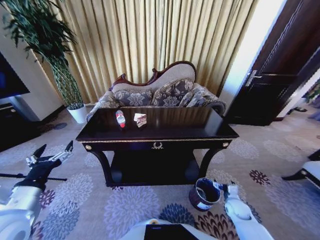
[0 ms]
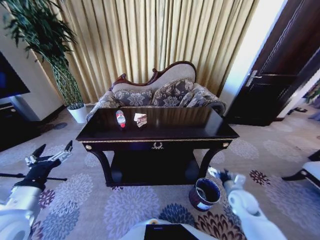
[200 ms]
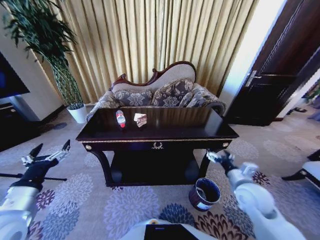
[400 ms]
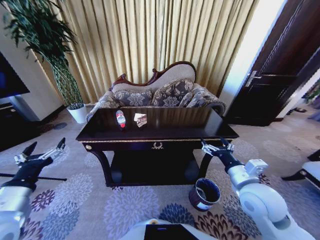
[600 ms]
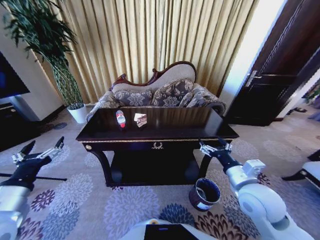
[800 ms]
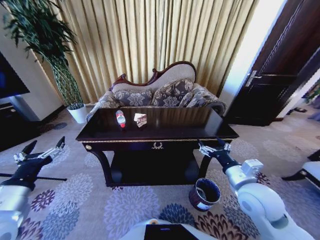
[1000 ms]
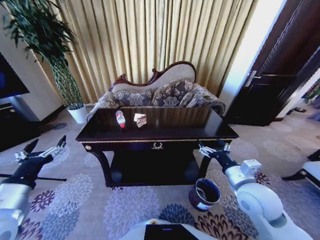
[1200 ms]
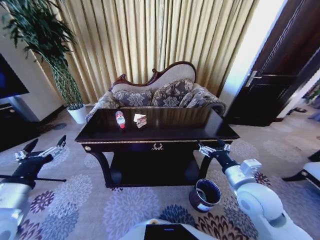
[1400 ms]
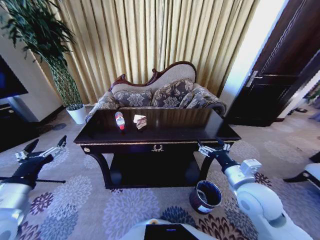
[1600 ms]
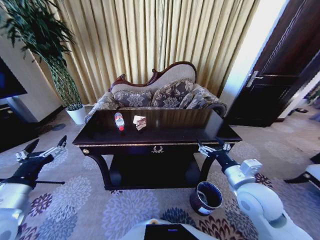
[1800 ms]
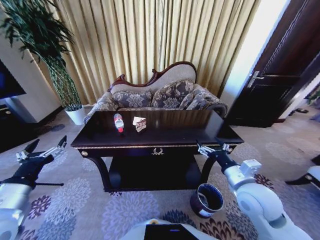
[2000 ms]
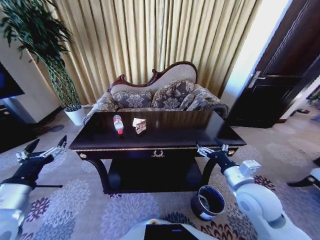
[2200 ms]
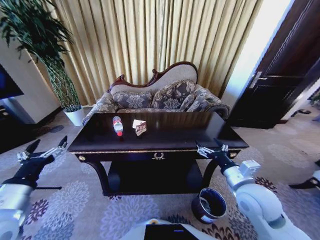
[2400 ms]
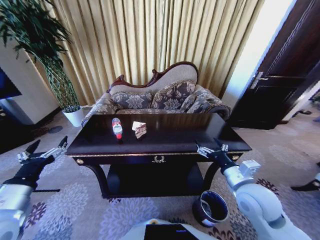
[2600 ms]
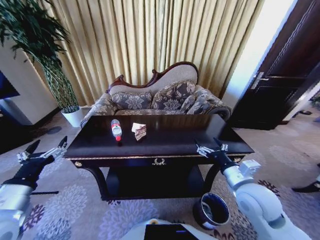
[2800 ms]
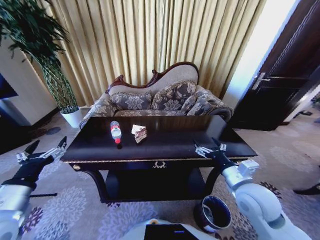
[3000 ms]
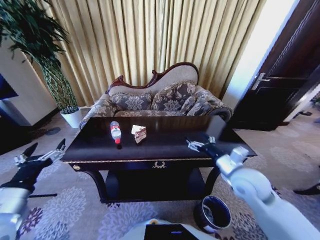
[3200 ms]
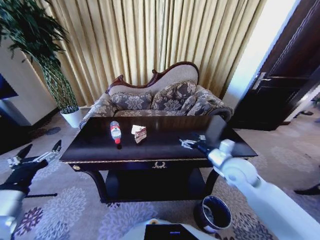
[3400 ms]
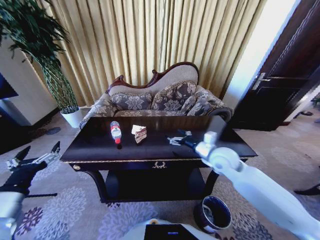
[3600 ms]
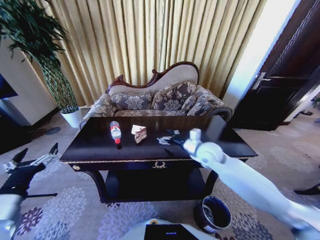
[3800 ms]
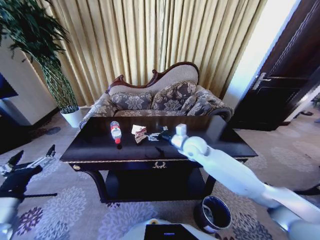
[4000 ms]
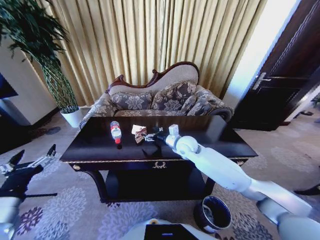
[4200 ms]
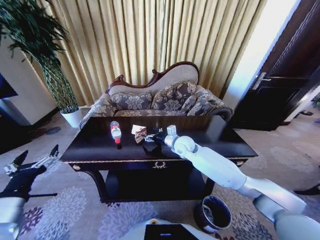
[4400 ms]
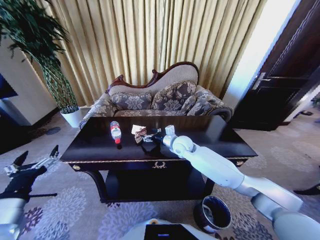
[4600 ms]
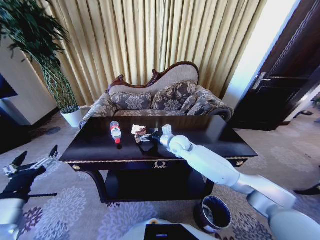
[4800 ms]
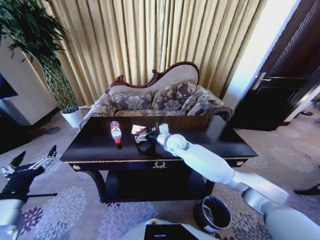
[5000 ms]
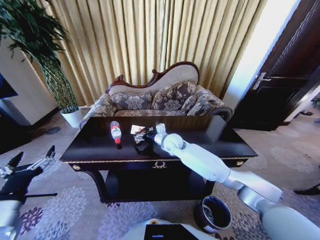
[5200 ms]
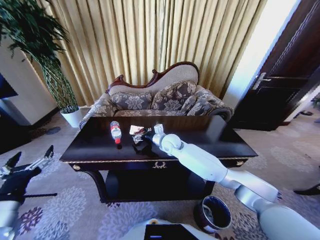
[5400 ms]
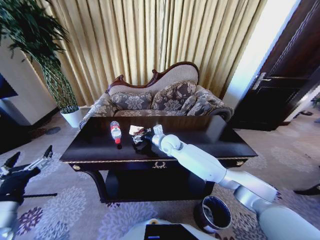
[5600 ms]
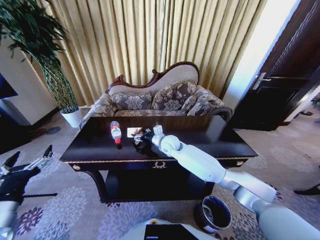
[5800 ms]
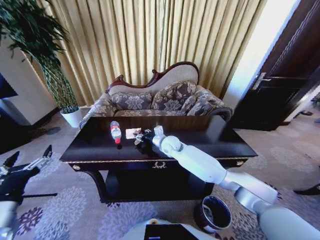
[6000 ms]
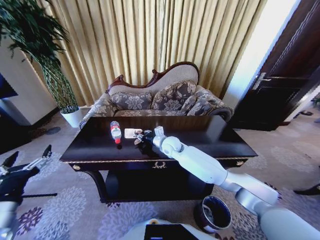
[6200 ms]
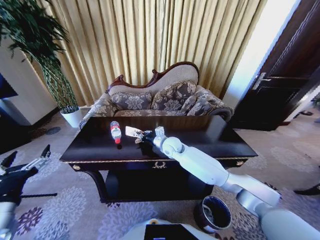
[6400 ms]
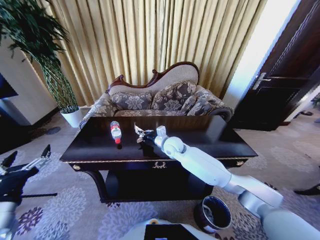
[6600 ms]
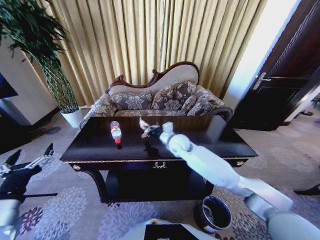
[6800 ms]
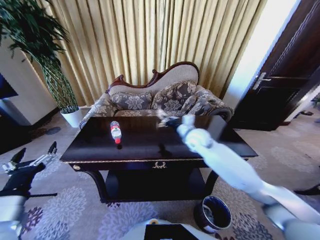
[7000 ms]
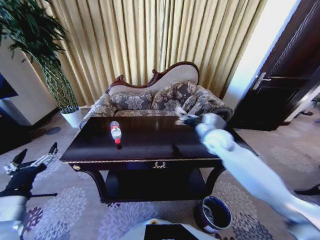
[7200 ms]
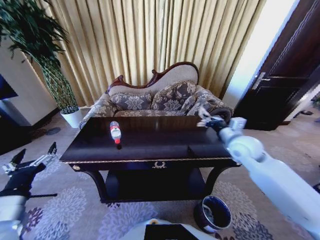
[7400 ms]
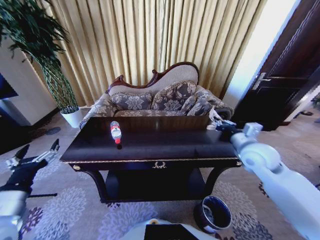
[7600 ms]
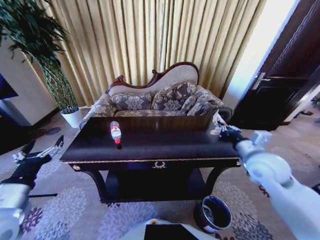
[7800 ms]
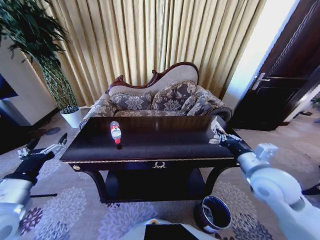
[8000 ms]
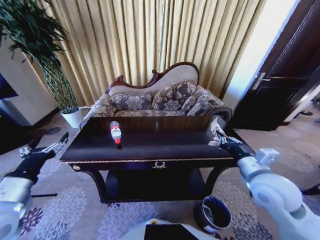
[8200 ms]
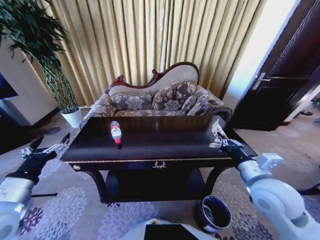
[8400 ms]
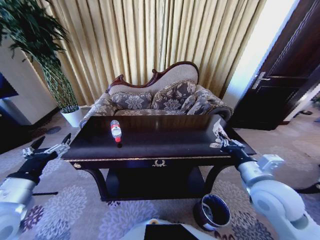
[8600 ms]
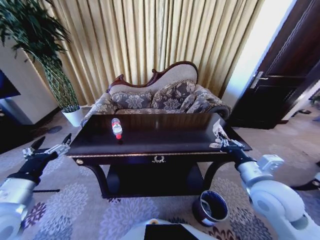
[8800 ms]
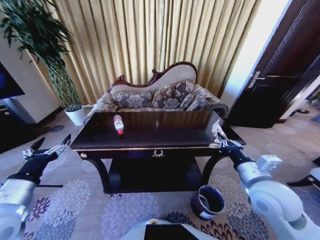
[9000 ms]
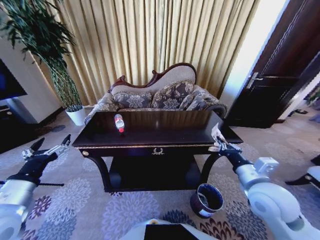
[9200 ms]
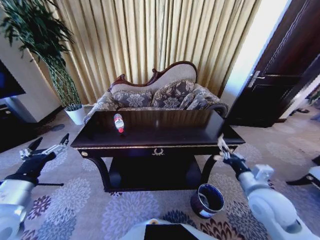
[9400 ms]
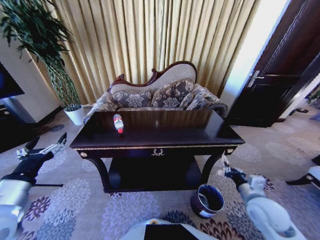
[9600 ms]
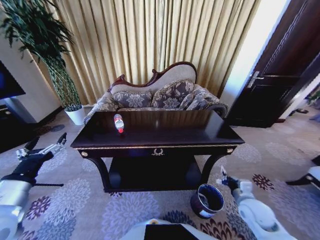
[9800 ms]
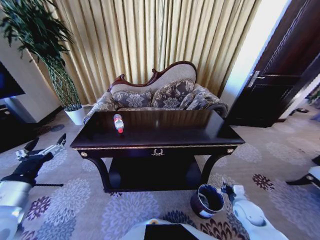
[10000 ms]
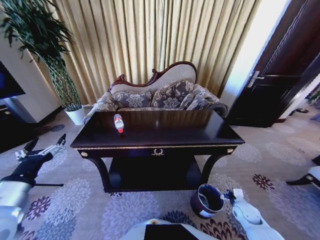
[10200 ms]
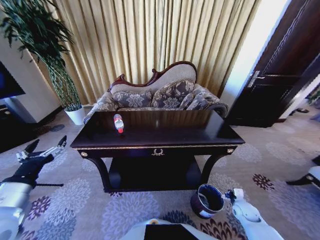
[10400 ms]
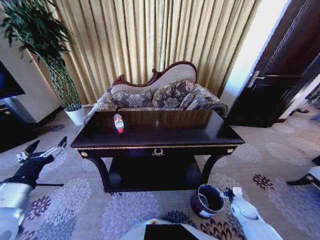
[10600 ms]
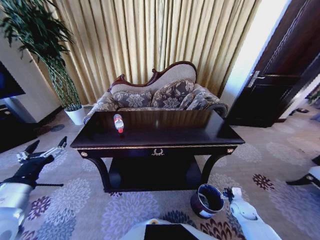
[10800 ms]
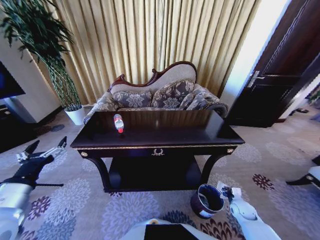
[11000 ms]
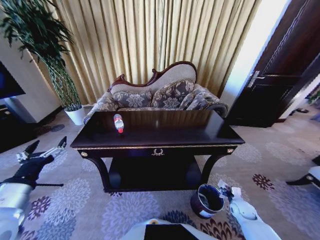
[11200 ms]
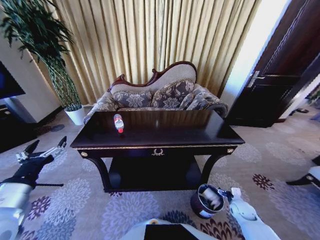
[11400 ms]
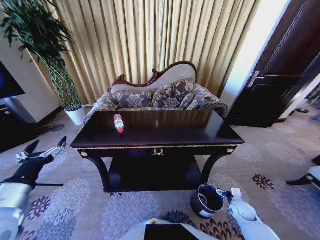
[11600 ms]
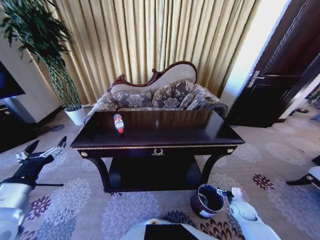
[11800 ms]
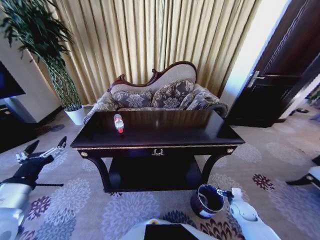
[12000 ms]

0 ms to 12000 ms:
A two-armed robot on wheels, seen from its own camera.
Task of the whole recording: Move to the front of the table and place the trash on the table into the trash bin.
0 ms to 1600 ms: The right gripper heads upward and to the left, covering approximately 35 cm.
3000 ms to 4400 ms: The right gripper heads forward and to the left, covering roughly 30 cm.
4400 ms to 6000 ms: The right gripper heads to the left, covering roughly 5 cm, and closes up.
6000 ms to 7600 ms: The right gripper goes approximately 30 cm to the right and backward, and closes its fingers.
7600 ms to 9000 ms: The right gripper shifts roughly 10 cm backward.
9000 ms to 10400 ms: The right gripper goes approximately 35 cm downward and to the right.

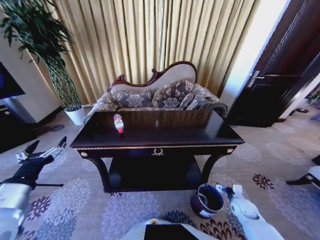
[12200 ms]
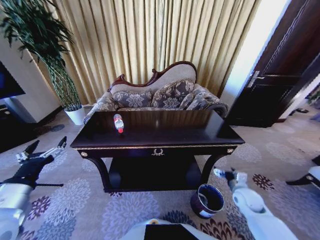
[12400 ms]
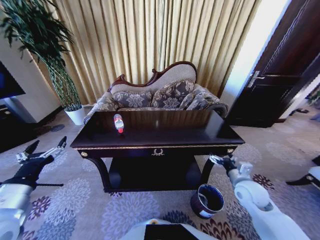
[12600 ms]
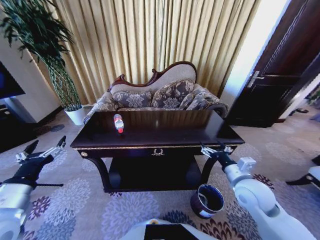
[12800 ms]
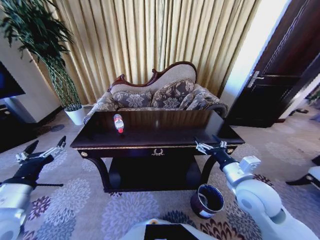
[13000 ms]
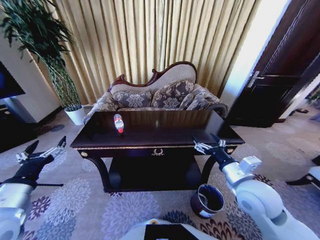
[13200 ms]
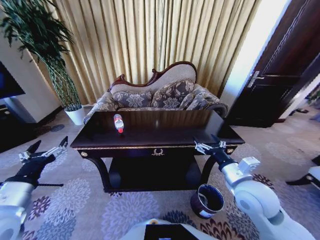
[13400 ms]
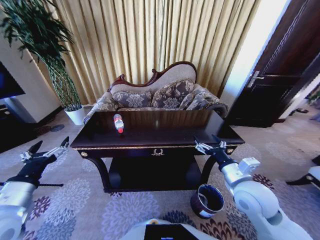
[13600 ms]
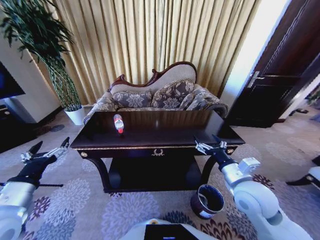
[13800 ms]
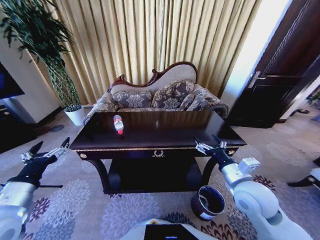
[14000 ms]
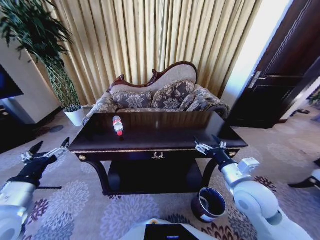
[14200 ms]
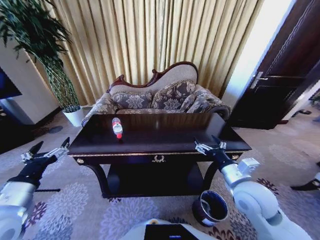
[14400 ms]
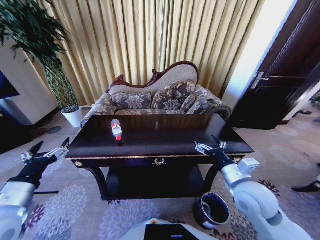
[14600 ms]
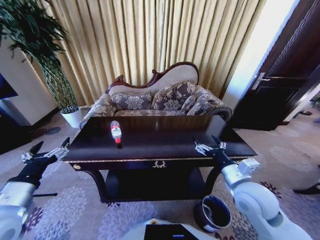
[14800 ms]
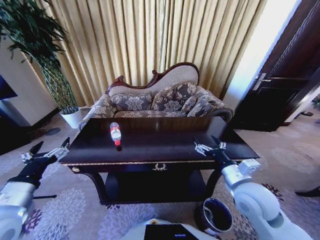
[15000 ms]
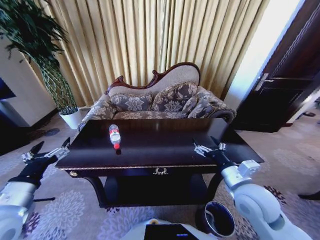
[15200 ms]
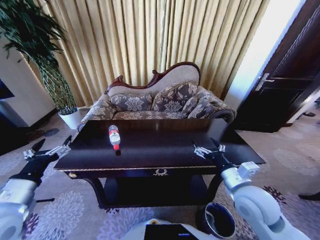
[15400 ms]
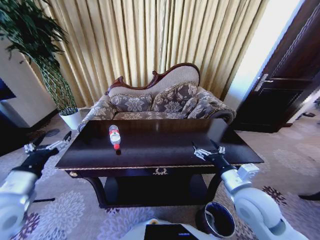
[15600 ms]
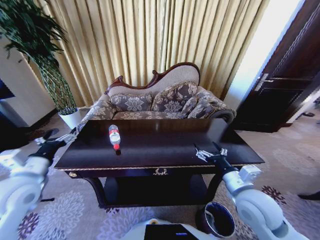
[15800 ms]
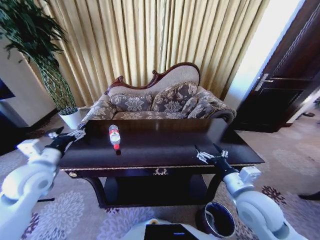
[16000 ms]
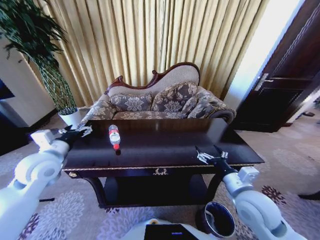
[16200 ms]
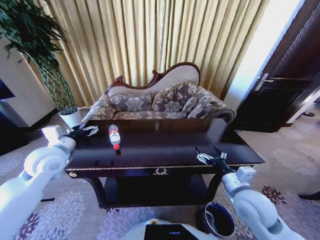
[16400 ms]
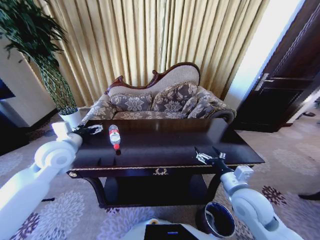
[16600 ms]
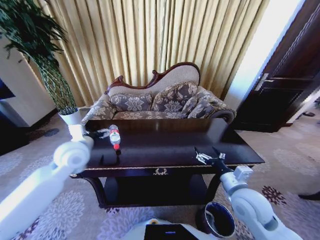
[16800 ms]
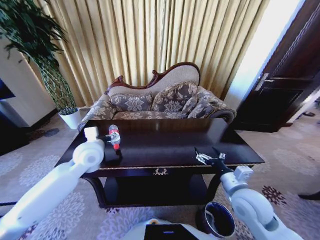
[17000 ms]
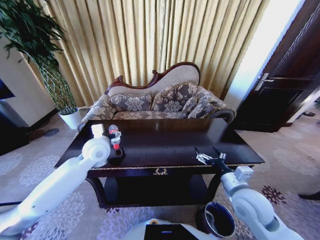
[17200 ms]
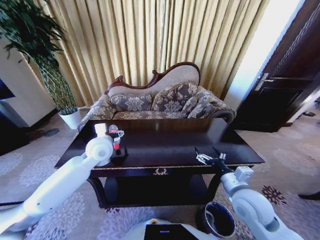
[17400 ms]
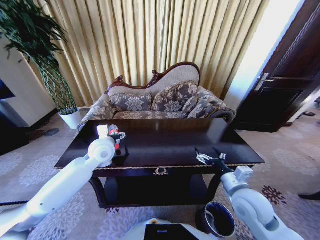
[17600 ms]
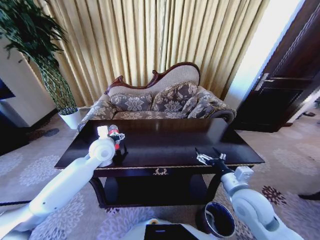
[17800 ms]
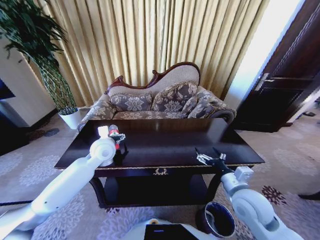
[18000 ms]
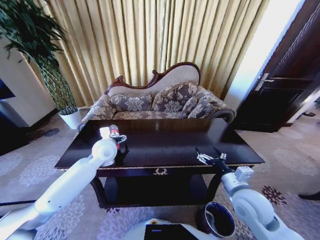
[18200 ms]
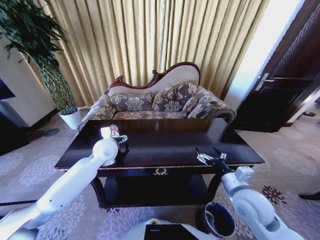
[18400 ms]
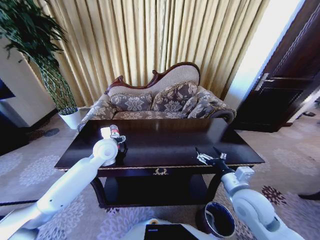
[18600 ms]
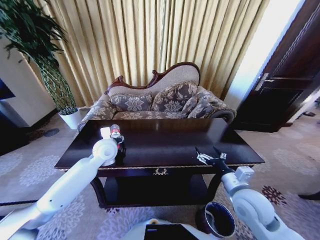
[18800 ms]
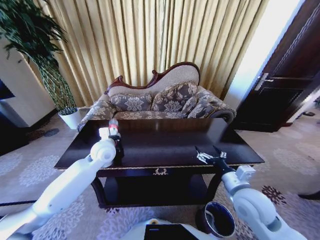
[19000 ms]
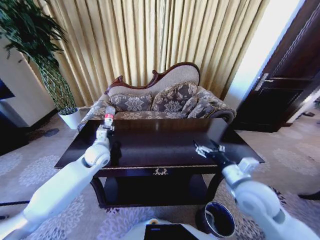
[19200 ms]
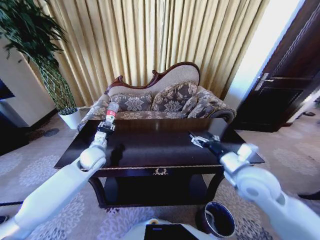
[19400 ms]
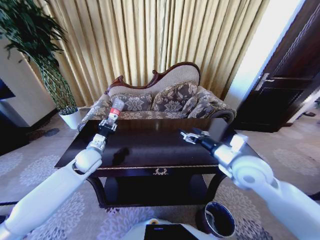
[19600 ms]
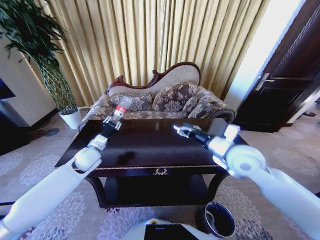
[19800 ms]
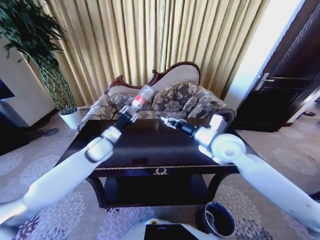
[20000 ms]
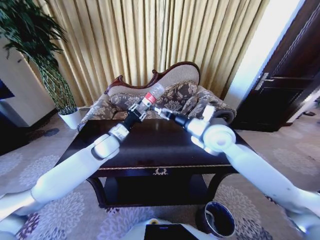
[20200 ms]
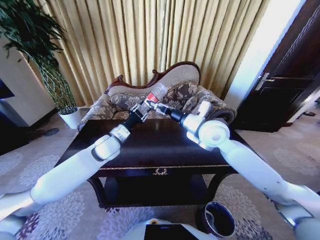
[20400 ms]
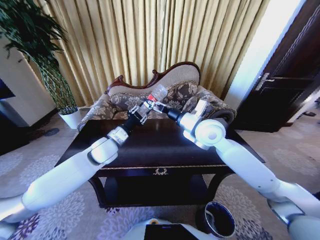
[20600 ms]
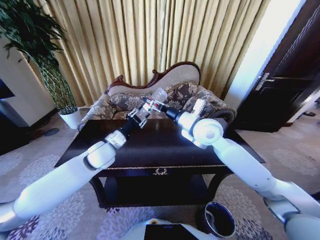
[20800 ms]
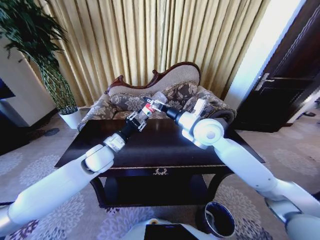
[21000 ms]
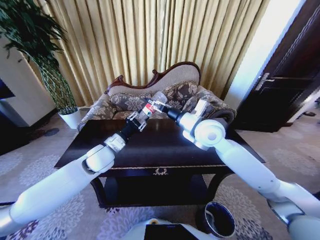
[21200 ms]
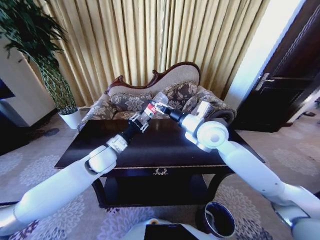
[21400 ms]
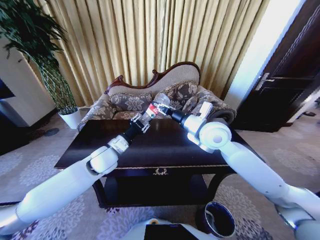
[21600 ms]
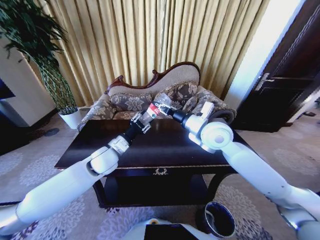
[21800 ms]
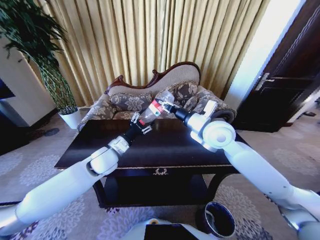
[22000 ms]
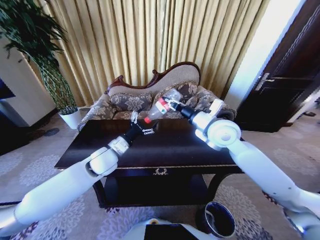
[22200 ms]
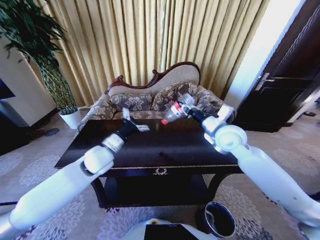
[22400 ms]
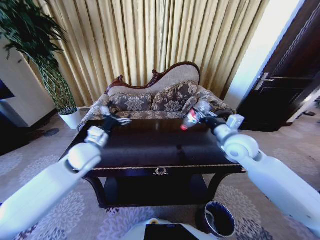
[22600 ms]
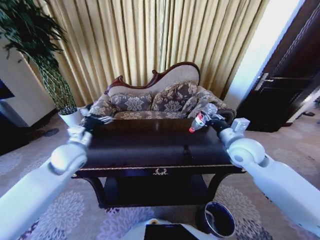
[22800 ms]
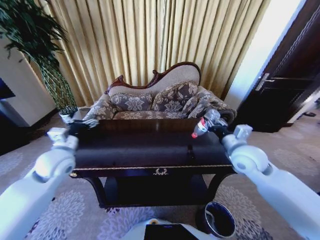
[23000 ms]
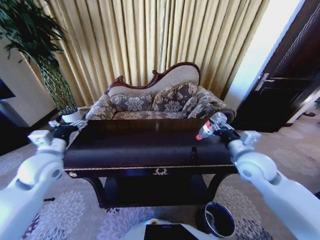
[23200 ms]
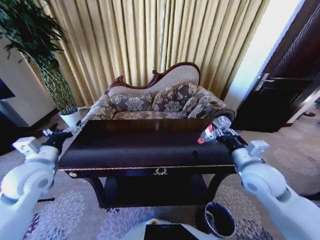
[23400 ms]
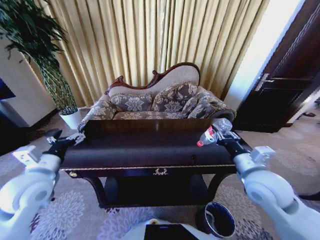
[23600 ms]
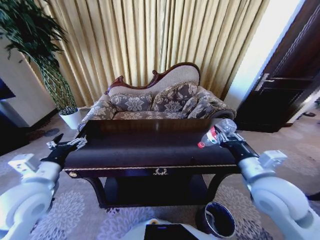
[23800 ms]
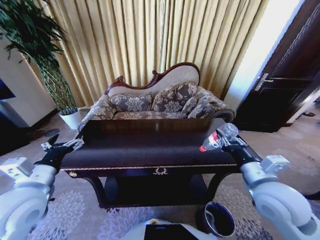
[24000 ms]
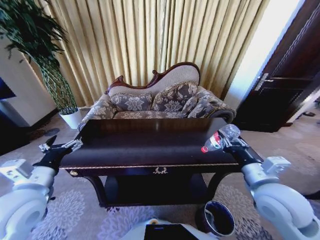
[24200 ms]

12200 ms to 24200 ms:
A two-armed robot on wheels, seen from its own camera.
Task of the whole recording: Move to the front of the table and place the trash on the table into the trash bin.
12200 ms to 13800 ms: The right gripper goes some 30 cm upward and to the left.
15200 ms to 16600 ms: The left gripper is displaced forward by approximately 20 cm.
16600 ms to 18200 ms: The left gripper is displaced to the right, downward and forward by approximately 15 cm.
18200 ms to 19800 ms: The right gripper goes about 15 cm forward and upward; the left gripper heads to the left, covering approximately 5 cm, and closes its fingers.
19800 ms to 21200 ms: The left gripper moves to the right, some 5 cm. Meanwhile the right gripper heads to the left and forward, covering roughly 10 cm.
21200 ms to 22600 ms: The right gripper is displaced to the right by approximately 10 cm, and closes up. The left gripper moves about 5 cm, and opens.
22600 ms to 24200 ms: The right gripper heads backward, covering some 15 cm. Meanwhile the left gripper shifts approximately 20 cm backward and to the left.
